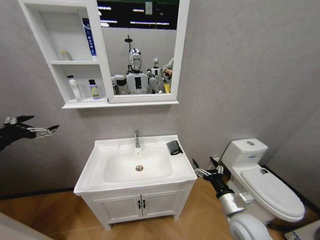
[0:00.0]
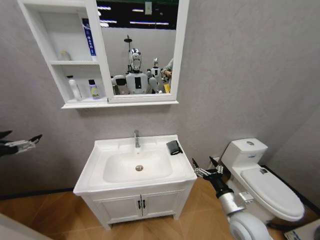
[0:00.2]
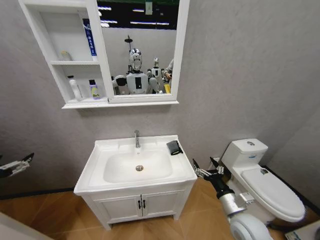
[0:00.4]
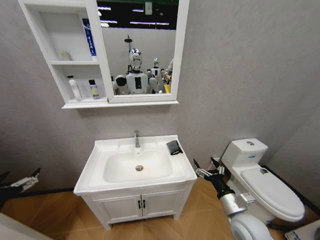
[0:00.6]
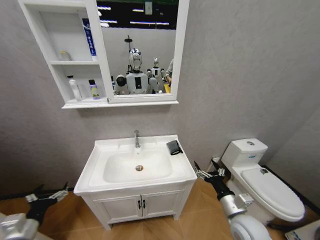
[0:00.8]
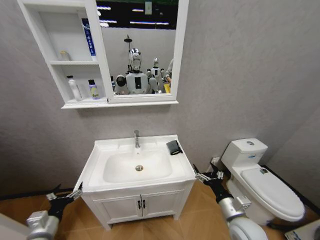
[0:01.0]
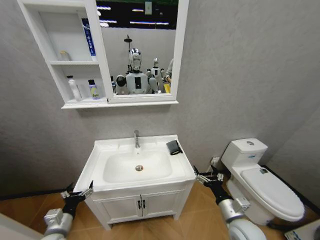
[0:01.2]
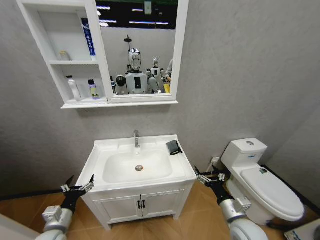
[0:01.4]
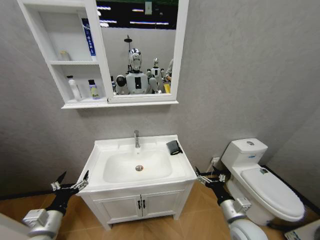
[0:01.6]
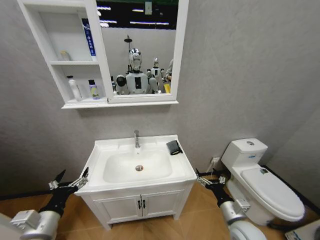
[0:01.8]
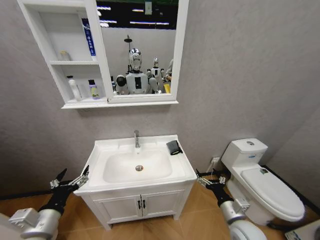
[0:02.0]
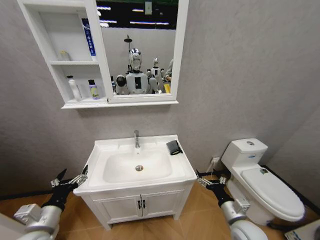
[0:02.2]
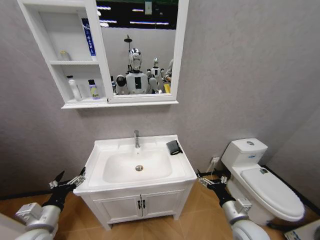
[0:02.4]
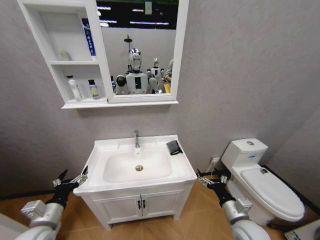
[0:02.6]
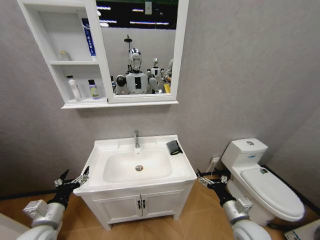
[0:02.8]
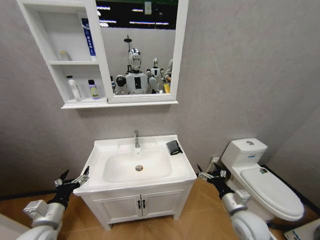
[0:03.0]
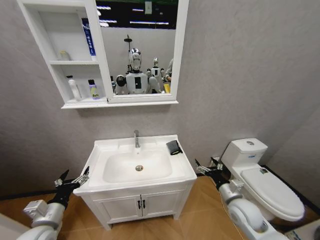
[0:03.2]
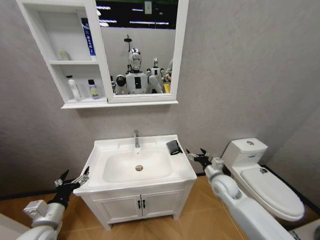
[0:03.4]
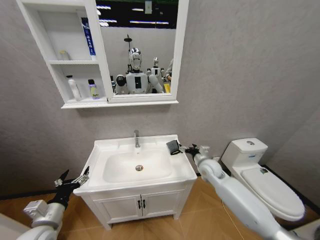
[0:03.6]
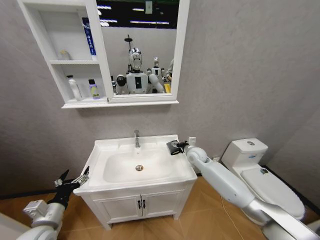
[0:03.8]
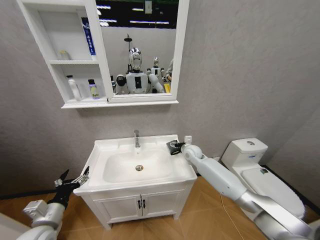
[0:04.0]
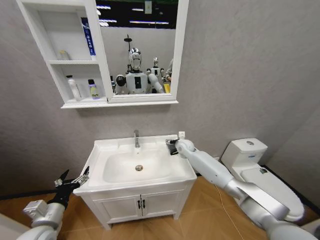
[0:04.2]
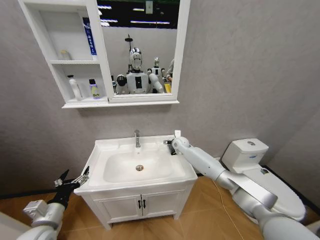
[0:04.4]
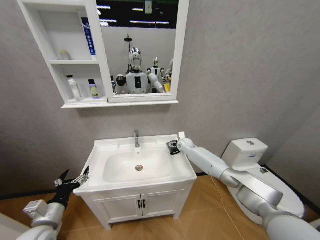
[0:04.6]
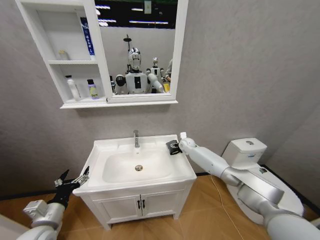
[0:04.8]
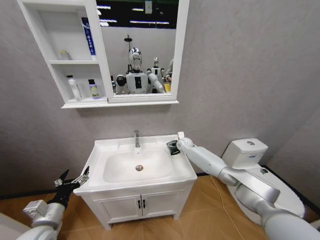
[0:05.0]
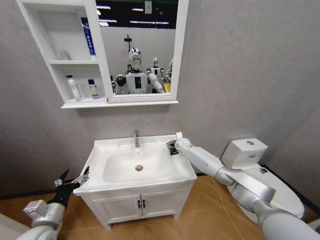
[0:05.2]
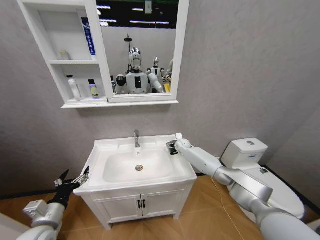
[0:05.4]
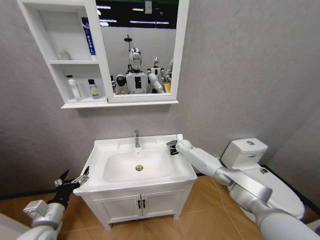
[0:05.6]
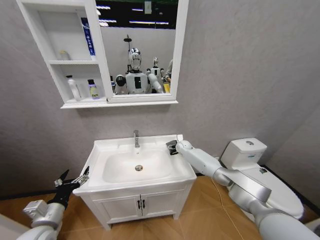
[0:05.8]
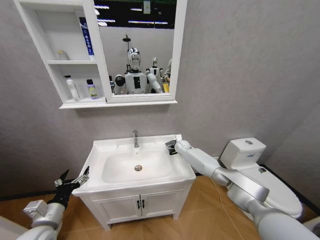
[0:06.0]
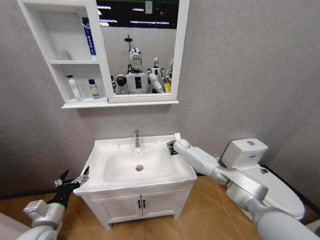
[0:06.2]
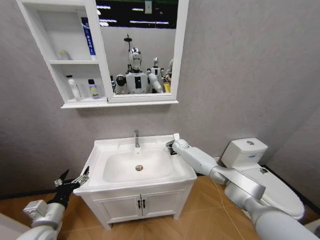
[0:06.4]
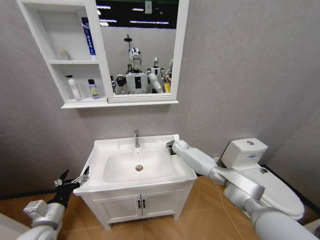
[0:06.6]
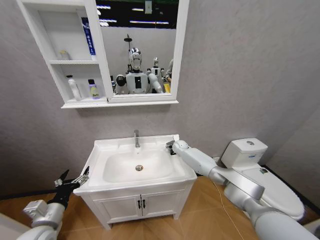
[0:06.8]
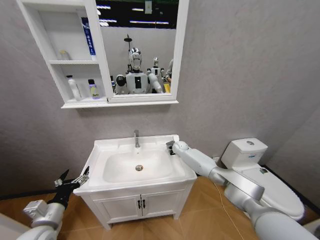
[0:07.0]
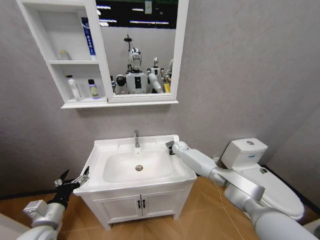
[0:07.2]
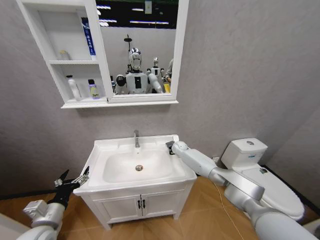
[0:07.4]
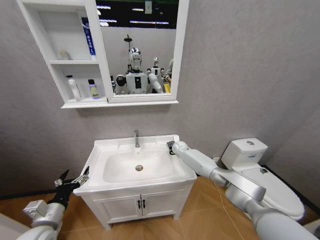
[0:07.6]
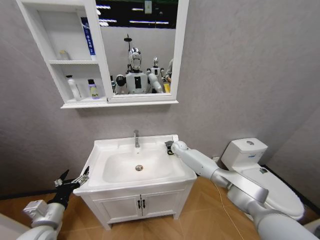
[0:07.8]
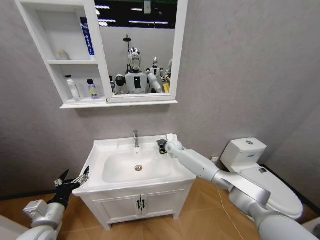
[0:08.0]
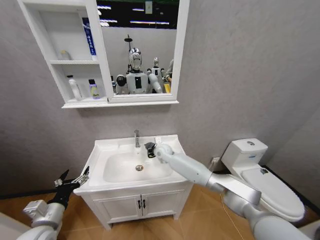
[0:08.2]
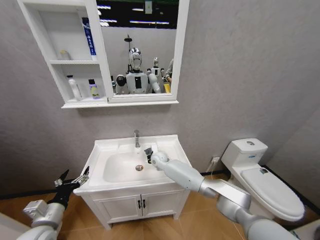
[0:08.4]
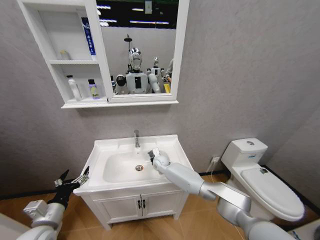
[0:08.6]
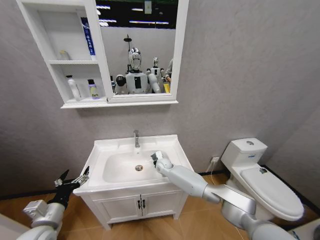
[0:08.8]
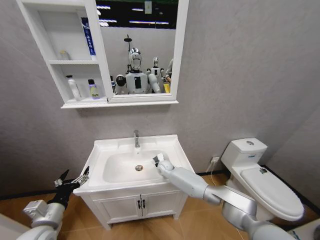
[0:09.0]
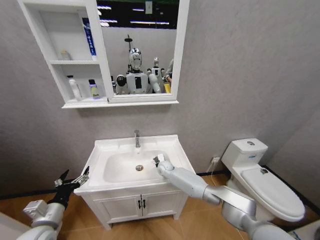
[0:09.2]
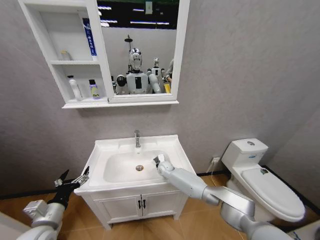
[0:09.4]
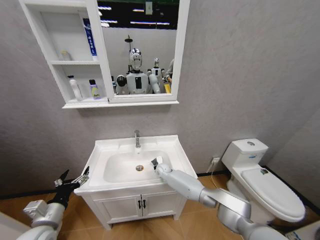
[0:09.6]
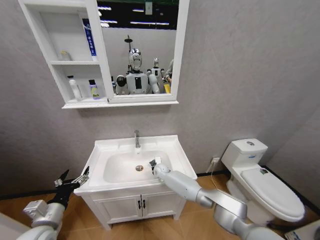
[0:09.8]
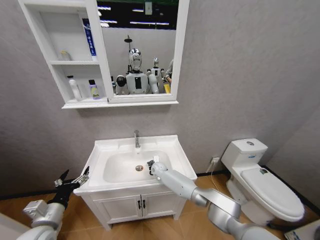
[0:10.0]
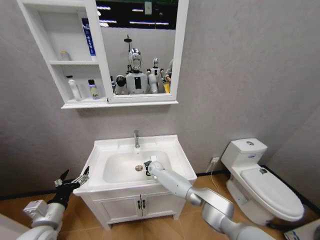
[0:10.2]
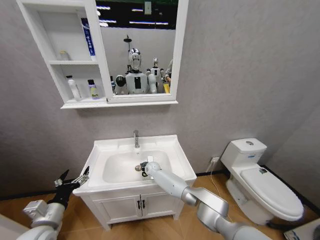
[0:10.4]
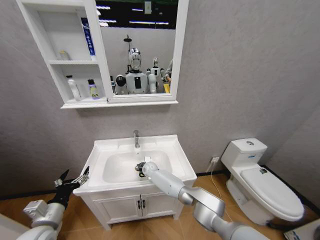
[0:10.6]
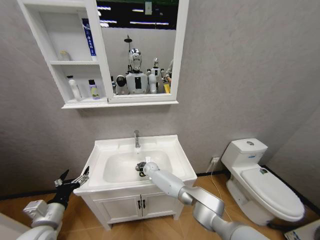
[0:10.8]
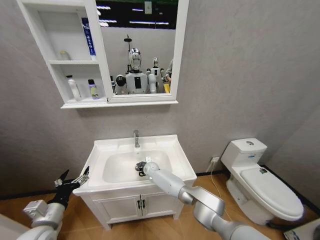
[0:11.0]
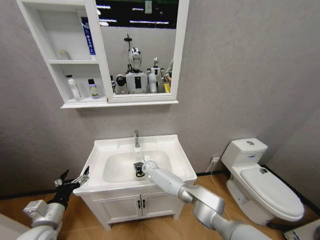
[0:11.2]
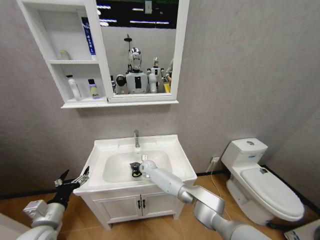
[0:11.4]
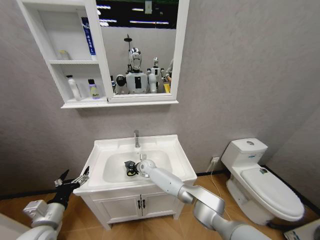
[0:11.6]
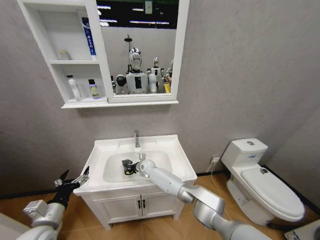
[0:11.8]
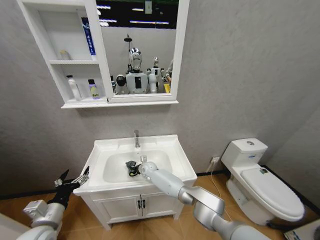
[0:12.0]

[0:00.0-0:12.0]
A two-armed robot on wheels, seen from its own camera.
Task of the whole recording: Move facial cleanser and shampoo from washbasin to cabinet, then wipe washbasin with towel.
0:00.0 to 0:01.6: The left gripper shifts some 30 cm downward and to the right.
0:03.0 to 0:04.4: The right gripper moves forward and to the left, roughly 40 cm.
0:04.4 to 0:06.0: The right gripper is displaced downward by approximately 5 cm.
0:06.0 to 0:07.6: The right gripper closes.
0:07.6 to 0:09.0: The right gripper moves to the left, backward and downward, roughly 15 cm.
0:09.0 to 0:10.4: The right gripper shifts approximately 5 cm to the left.

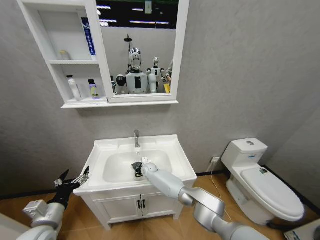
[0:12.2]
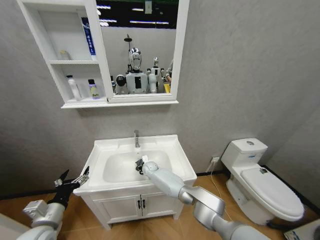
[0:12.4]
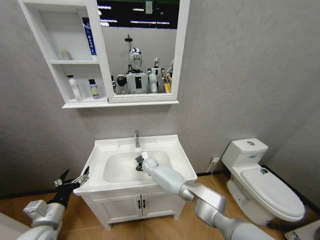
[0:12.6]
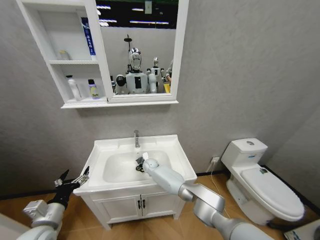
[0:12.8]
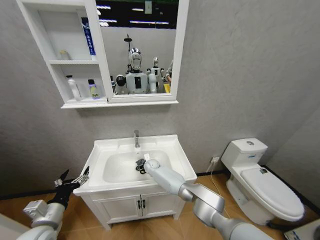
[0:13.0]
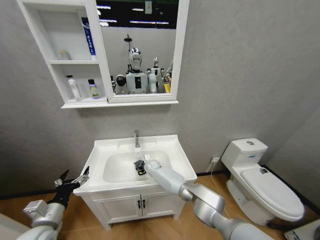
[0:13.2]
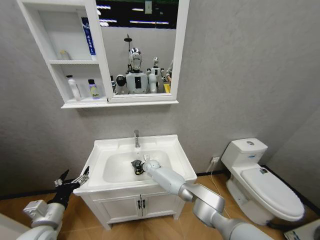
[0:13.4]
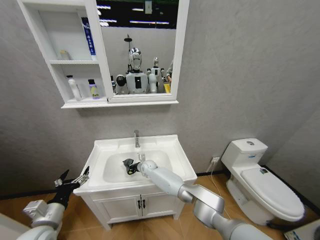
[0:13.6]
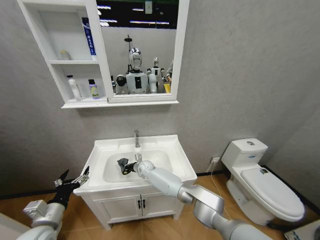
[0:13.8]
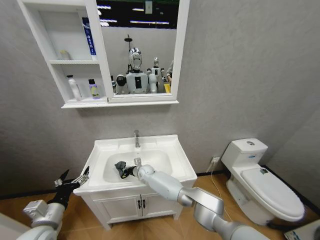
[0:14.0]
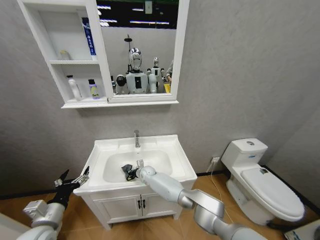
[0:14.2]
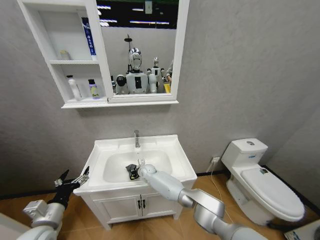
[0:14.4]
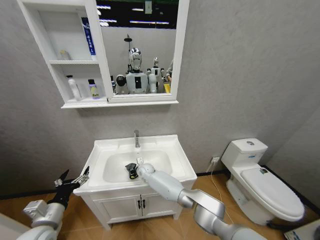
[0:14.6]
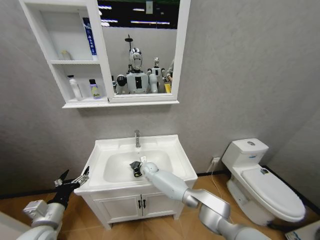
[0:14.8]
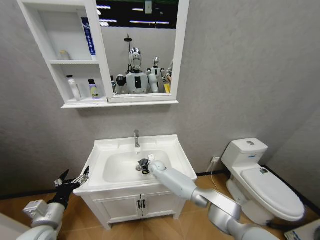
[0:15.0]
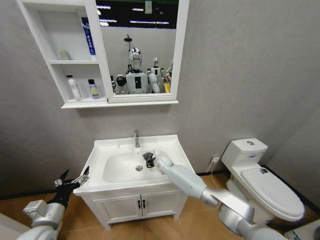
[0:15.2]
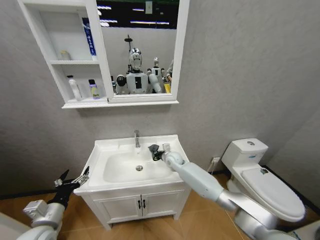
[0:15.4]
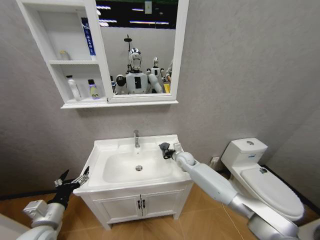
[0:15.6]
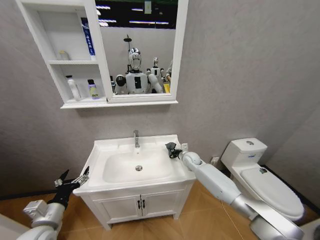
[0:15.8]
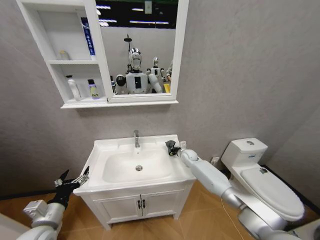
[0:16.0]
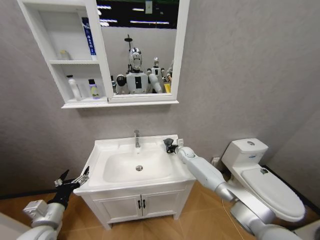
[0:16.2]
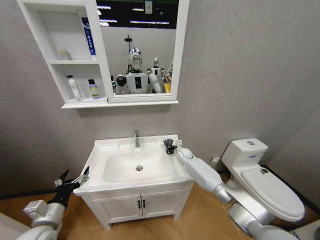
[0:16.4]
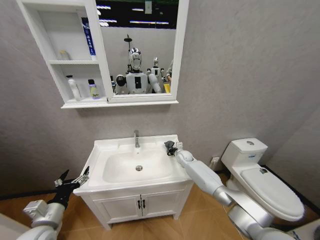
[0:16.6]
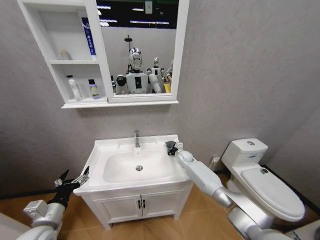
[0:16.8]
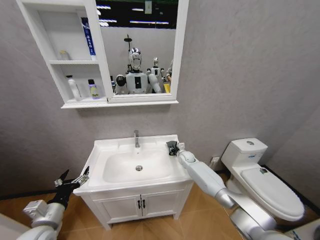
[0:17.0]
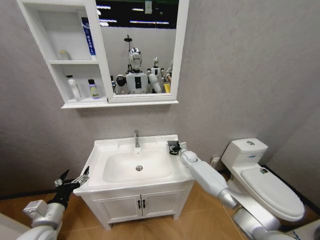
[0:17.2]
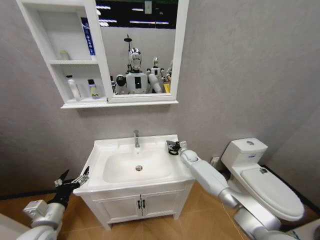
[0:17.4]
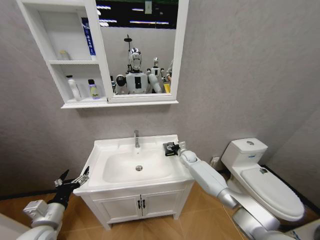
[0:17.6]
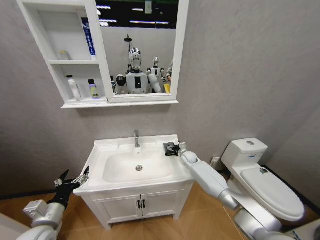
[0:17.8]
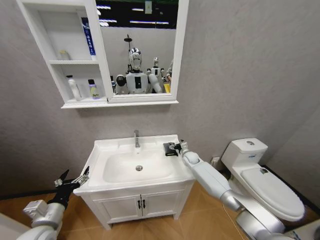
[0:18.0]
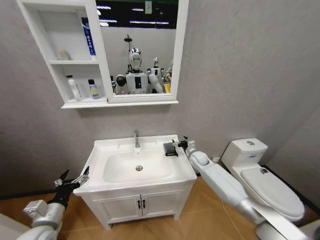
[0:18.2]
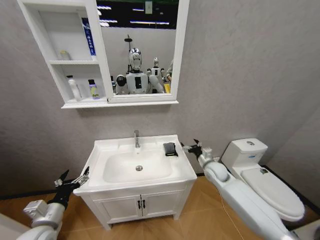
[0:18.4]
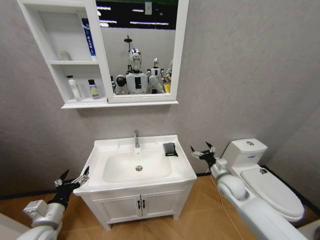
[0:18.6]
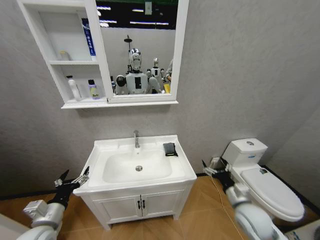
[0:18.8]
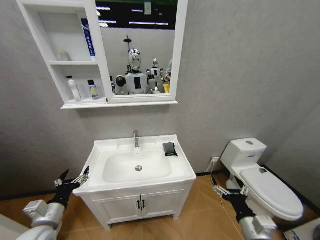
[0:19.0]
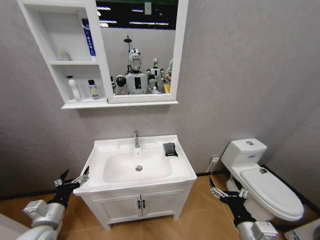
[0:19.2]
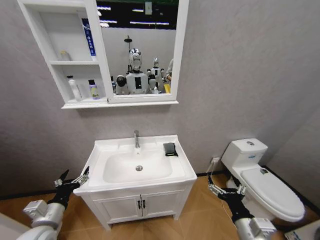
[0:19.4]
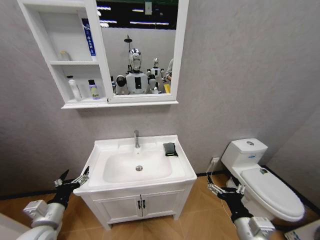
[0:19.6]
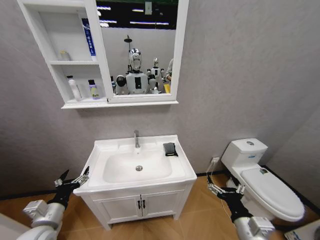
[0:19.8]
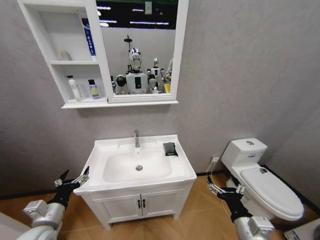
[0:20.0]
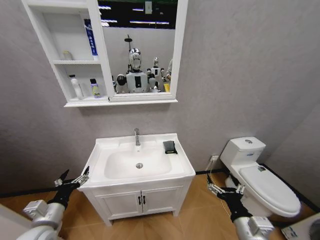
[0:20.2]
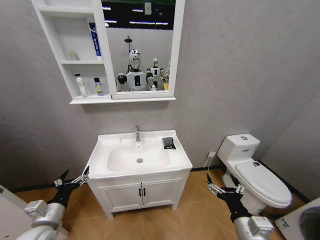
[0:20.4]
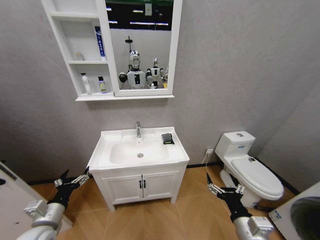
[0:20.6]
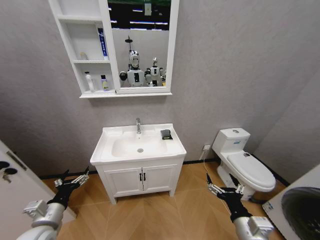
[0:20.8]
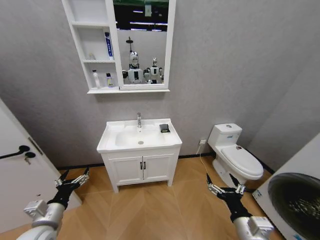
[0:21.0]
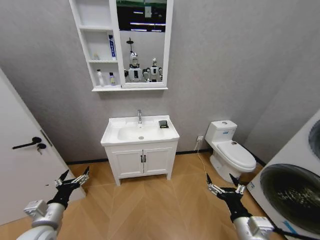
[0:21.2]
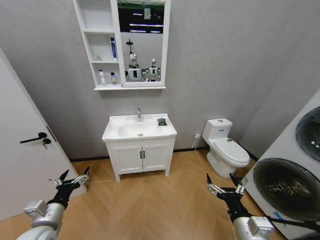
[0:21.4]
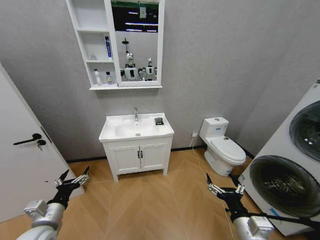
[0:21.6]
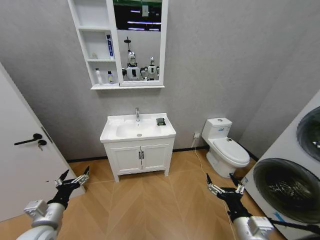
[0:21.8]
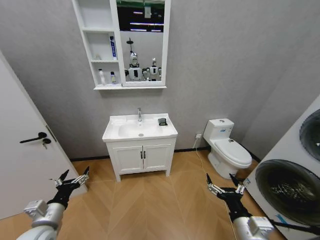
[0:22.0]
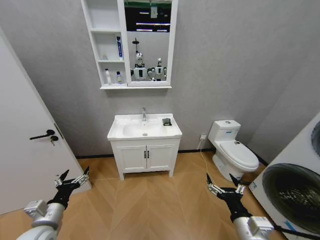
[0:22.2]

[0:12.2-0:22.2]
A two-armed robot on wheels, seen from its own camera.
Task of the whole recording: Move facial cleanser and shampoo from washbasin to cabinet, then wipe washbasin with towel.
0:12.2 to 0:13.6: The grippers stay close to where they were, moving slightly.
0:13.6 to 0:15.0: The right gripper travels to the right by about 5 cm.
0:15.0 to 0:16.4: The right gripper moves to the right, approximately 15 cm.
0:16.4 to 0:18.0: The right gripper ends up roughly 5 cm from where it was, and opens up.
0:18.0 to 0:19.4: The right gripper travels backward by roughly 40 cm.
